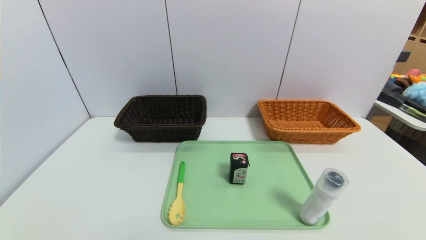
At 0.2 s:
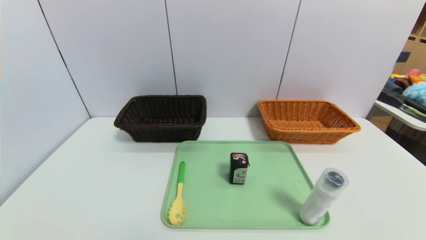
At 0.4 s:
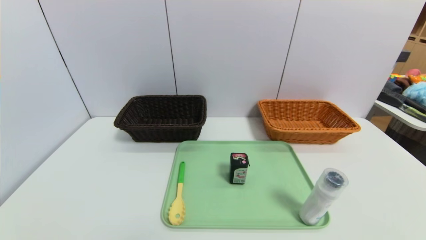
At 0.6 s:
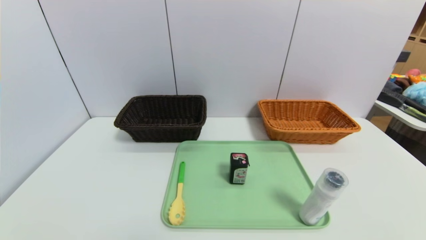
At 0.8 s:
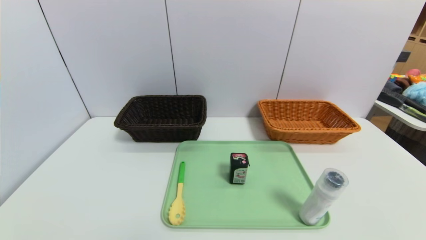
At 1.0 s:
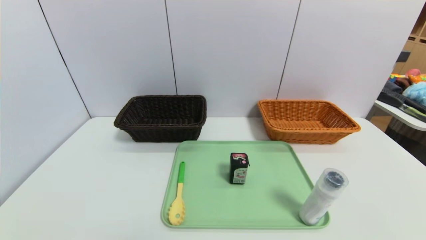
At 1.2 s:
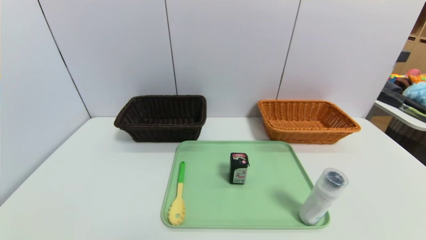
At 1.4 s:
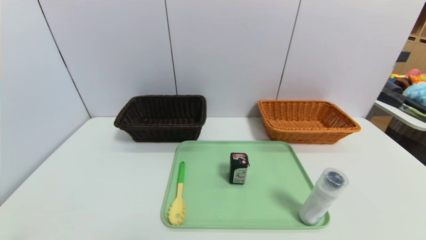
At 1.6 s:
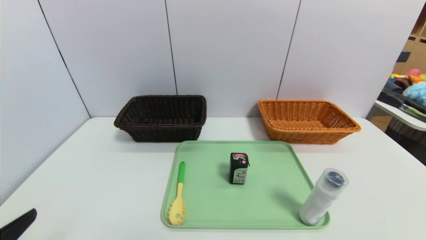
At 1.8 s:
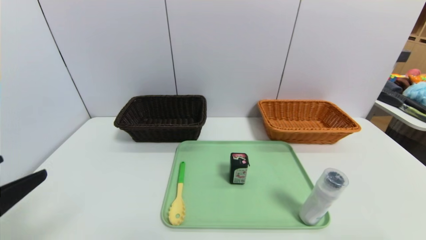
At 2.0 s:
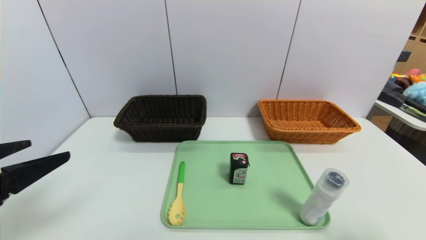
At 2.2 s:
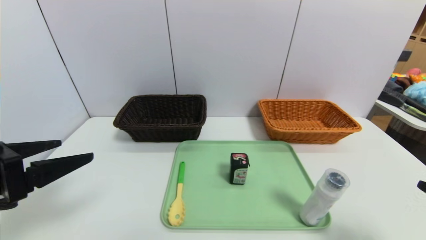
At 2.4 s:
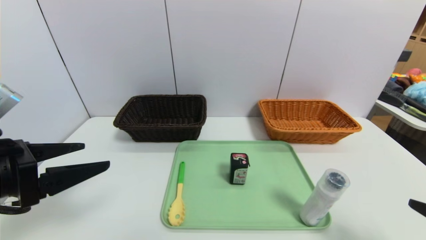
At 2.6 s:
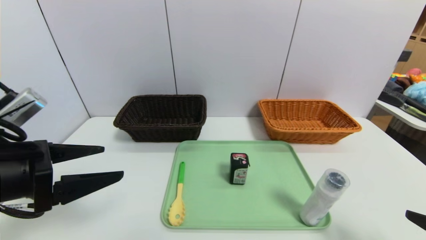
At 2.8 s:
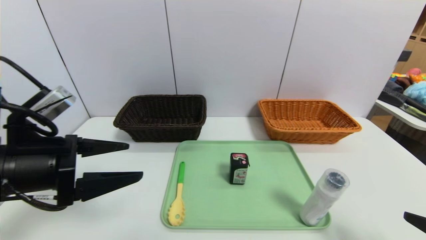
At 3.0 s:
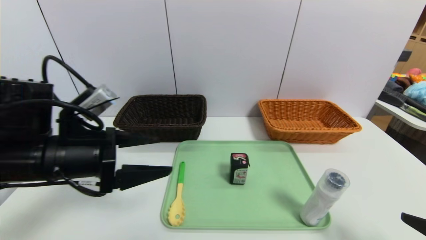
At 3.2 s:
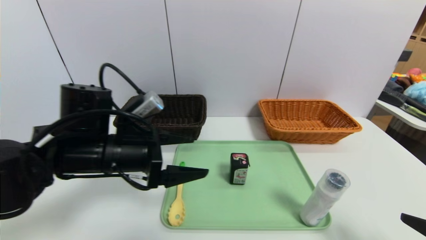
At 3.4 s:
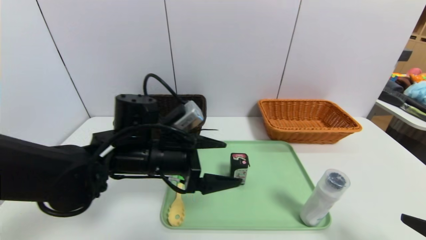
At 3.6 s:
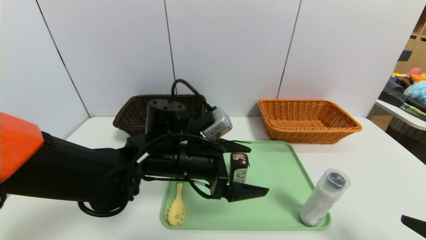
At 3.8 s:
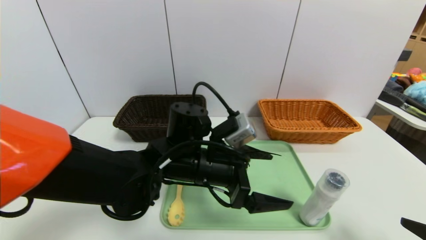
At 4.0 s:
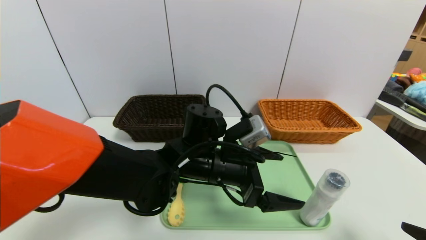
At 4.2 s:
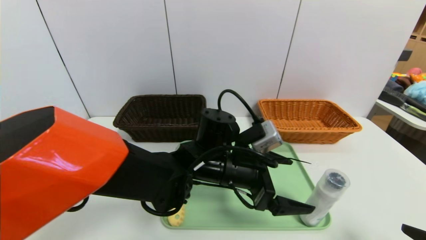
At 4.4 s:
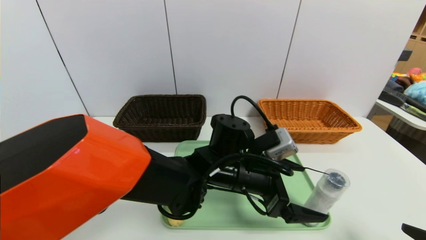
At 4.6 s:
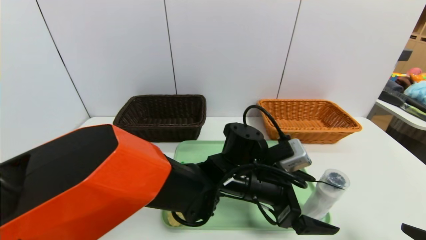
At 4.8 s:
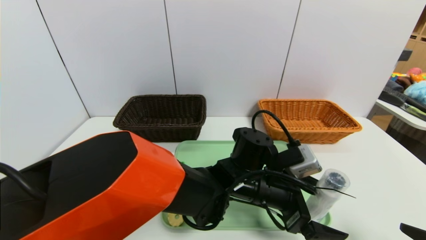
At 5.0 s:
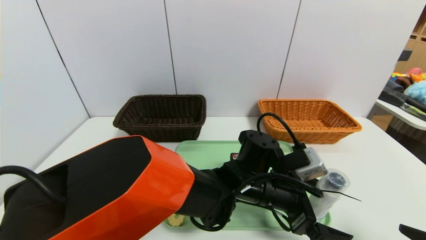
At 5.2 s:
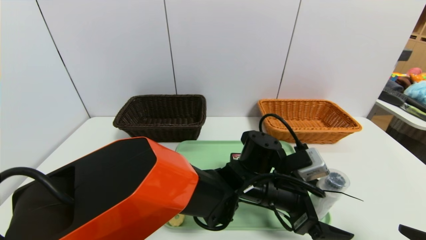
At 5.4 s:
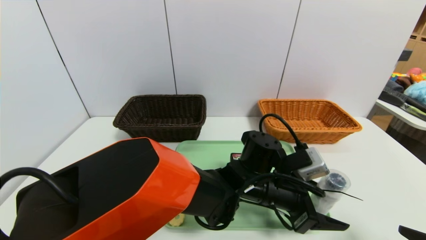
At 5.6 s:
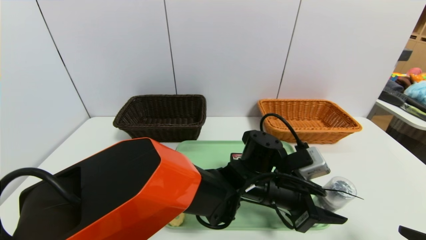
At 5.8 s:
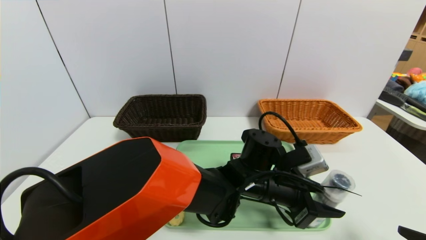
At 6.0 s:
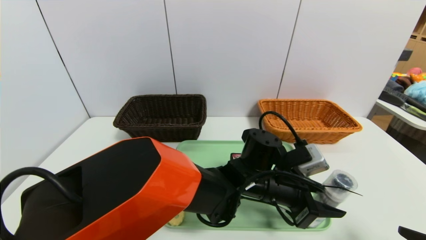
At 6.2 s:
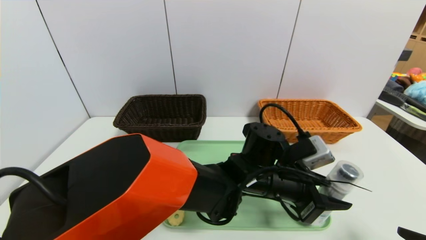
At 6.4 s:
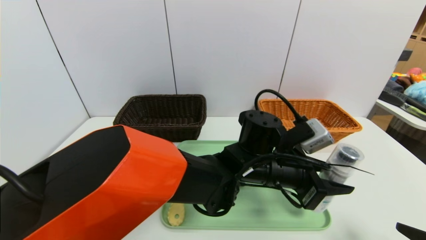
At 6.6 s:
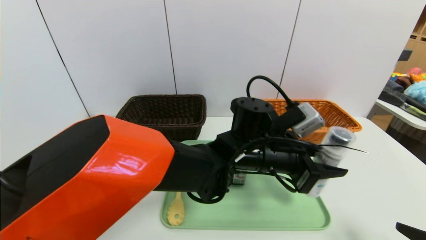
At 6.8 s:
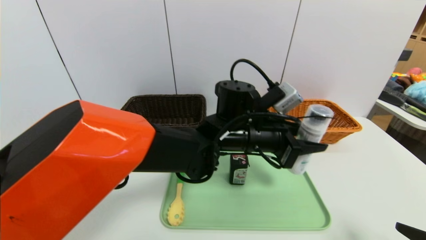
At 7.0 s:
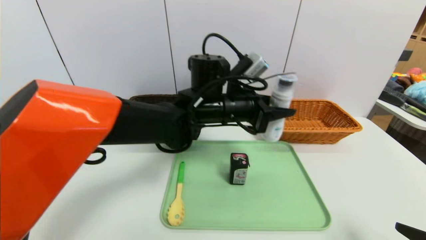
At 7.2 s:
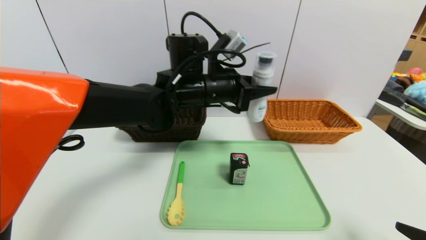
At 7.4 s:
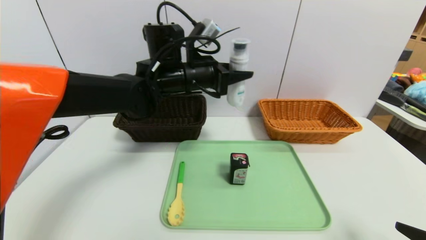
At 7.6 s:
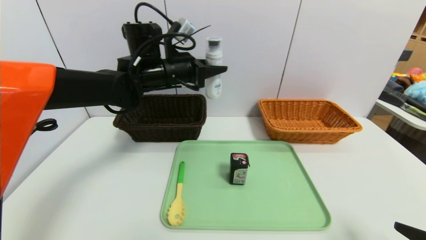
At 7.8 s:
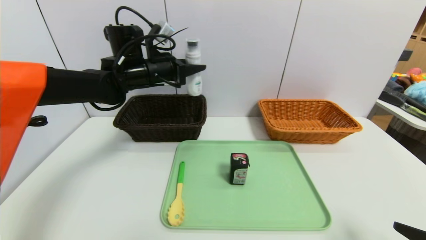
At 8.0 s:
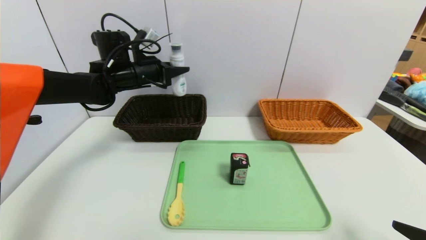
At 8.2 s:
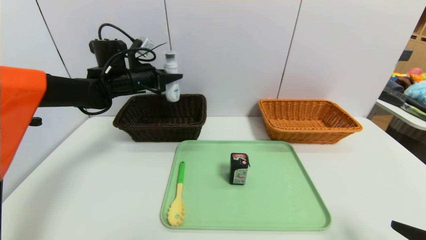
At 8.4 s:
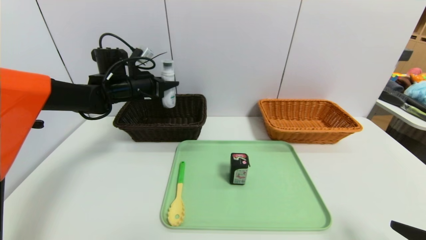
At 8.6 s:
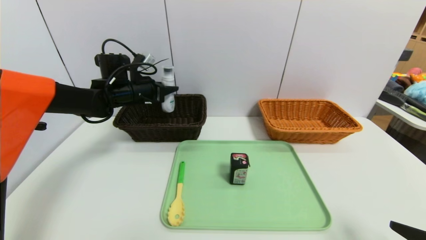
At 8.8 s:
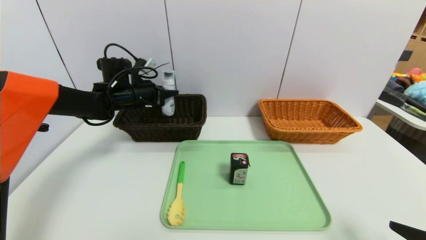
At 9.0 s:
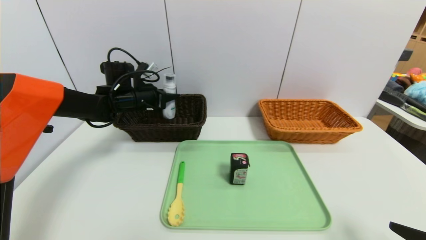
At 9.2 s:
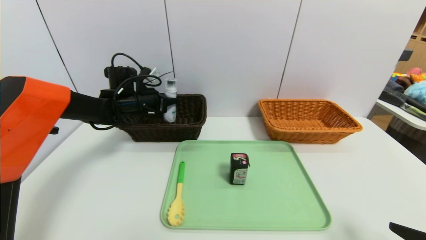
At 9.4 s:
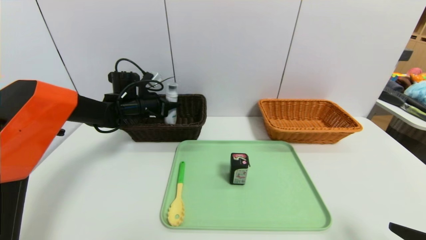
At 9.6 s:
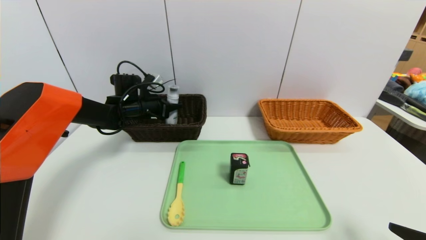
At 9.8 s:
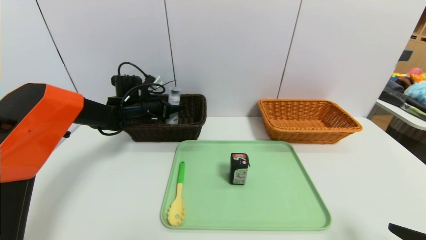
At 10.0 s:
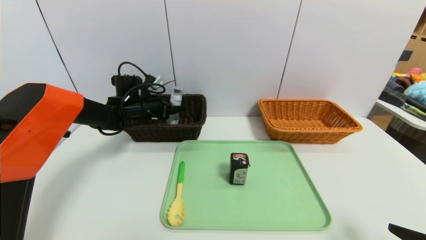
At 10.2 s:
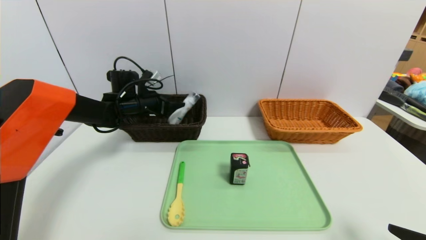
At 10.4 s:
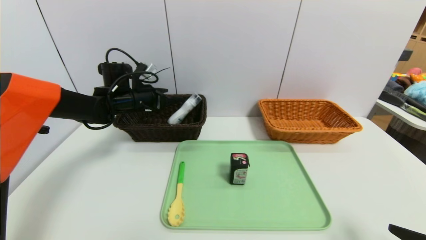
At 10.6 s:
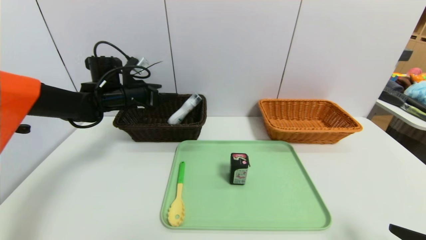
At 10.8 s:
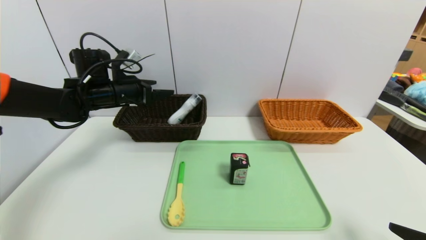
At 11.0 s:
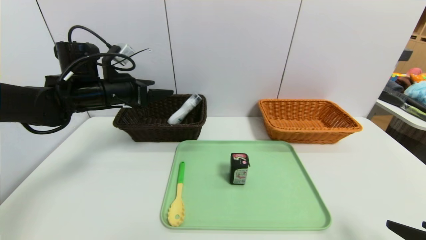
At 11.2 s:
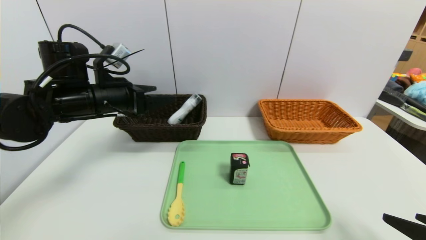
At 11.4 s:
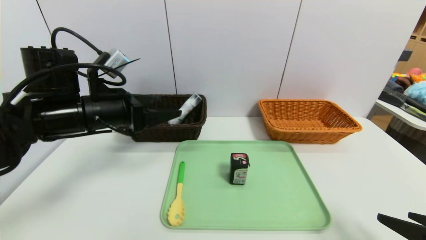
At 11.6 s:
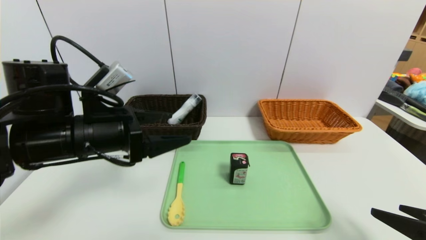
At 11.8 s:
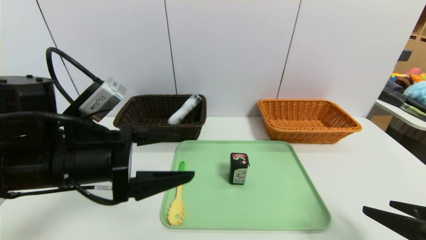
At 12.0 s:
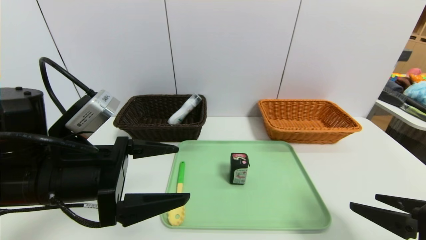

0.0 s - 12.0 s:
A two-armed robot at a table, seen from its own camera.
Task of the whole recording: place the food in the right basket with the right gripper, and place the non food items in the left basket with the left gripper.
Step, 0.0 s - 10.2 s: Grasp the cleaning agent and put it in the left basket.
0.0 s - 1.6 s: The left gripper is displaced upward by roughly 15 cm.
1.6 s - 3.0 s: The right gripper goes approximately 5 cm forward, while the left gripper moves forward and to the right, some 20 cm.
3.0 s - 4.4 s: The left gripper shifts some 25 cm to the right.
4.4 s - 6.0 s: The left gripper heads to the right, covering approximately 5 cm, and closes its fingers.
6.0 s - 7.6 s: The left gripper moves to the left, upward and forward, roughly 30 cm.
7.6 s - 9.0 s: The left gripper heads to the left, downward and forward, covering some 15 cm.
9.0 s - 10.4 s: The left gripper opens.
10.4 s - 12.0 s: The right gripper shifts by some 5 cm; the left gripper moves backward, approximately 25 cm.

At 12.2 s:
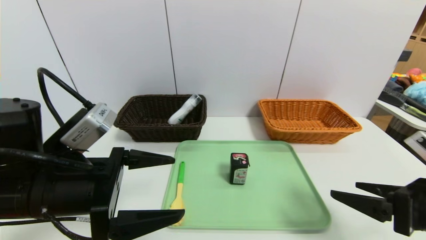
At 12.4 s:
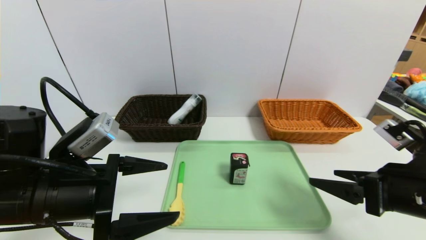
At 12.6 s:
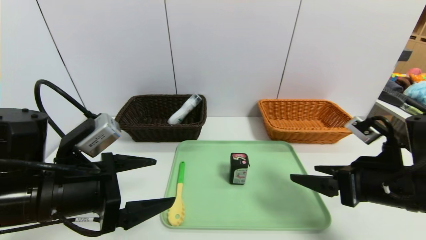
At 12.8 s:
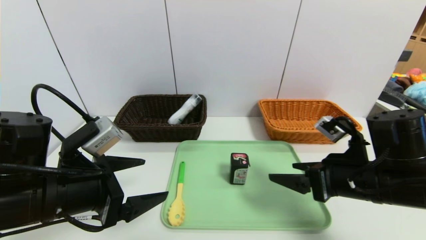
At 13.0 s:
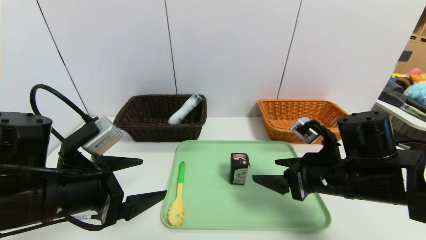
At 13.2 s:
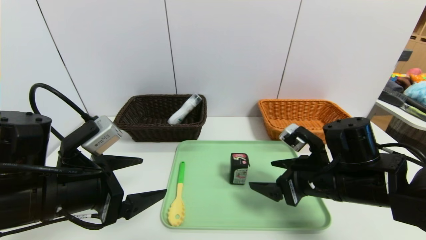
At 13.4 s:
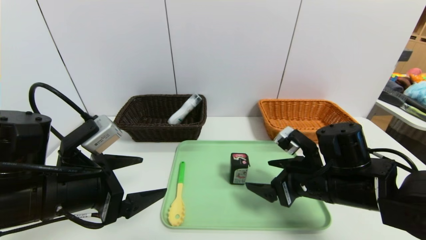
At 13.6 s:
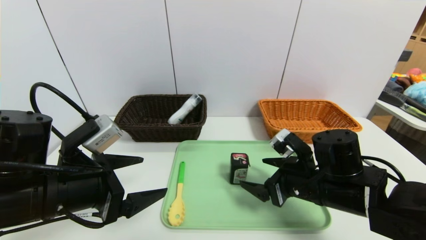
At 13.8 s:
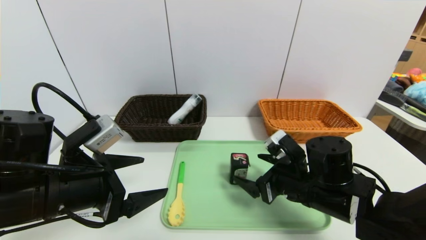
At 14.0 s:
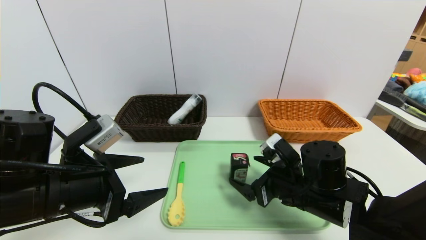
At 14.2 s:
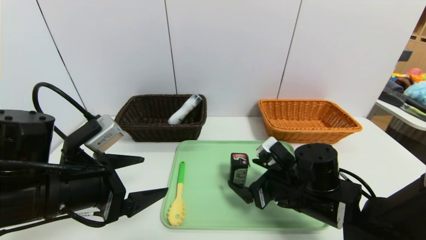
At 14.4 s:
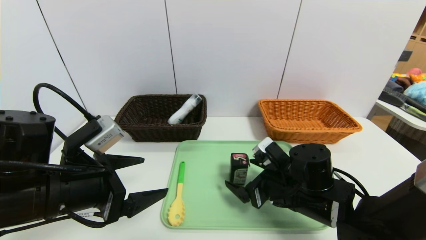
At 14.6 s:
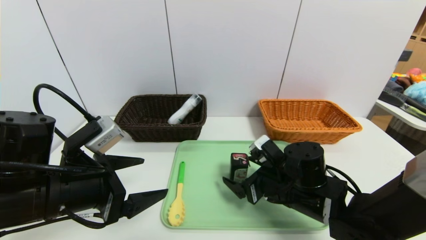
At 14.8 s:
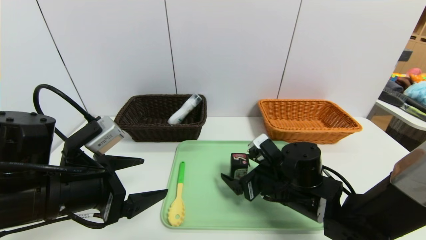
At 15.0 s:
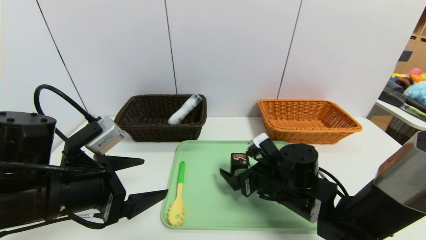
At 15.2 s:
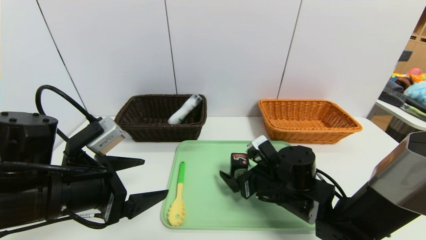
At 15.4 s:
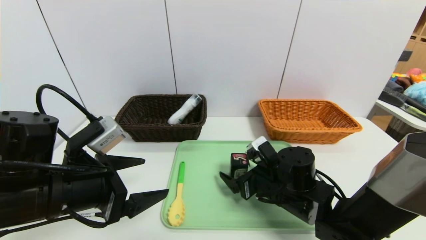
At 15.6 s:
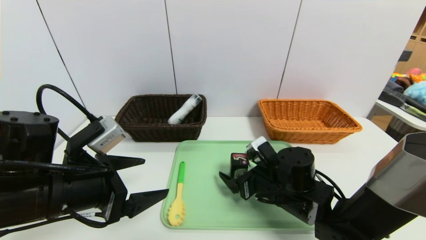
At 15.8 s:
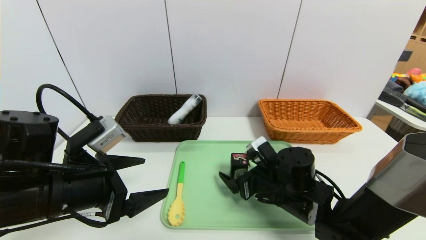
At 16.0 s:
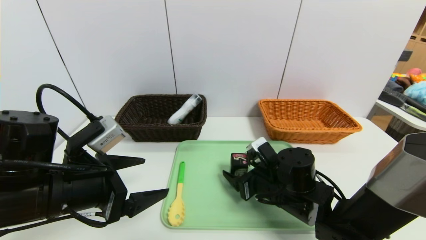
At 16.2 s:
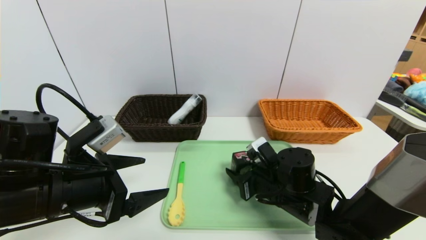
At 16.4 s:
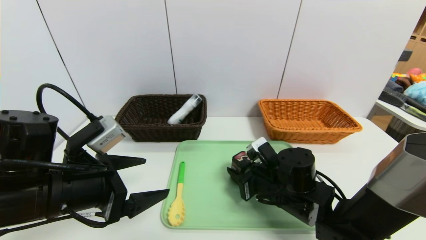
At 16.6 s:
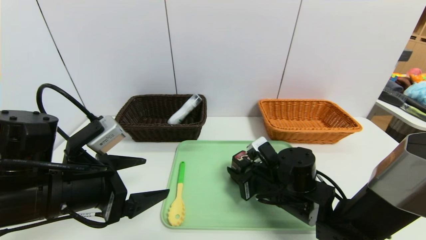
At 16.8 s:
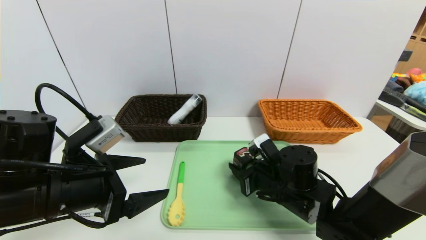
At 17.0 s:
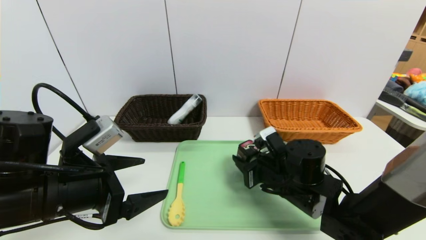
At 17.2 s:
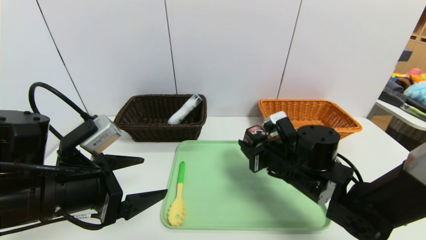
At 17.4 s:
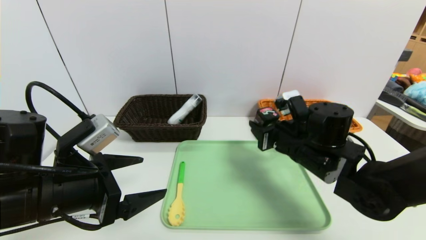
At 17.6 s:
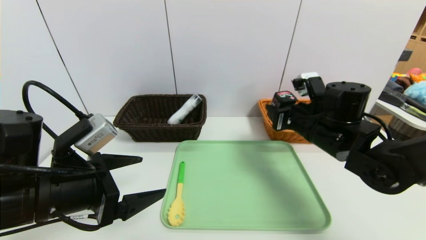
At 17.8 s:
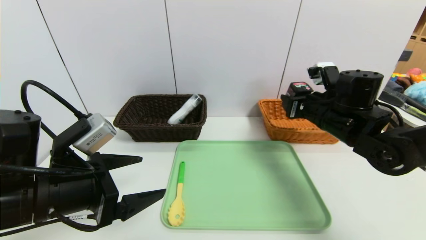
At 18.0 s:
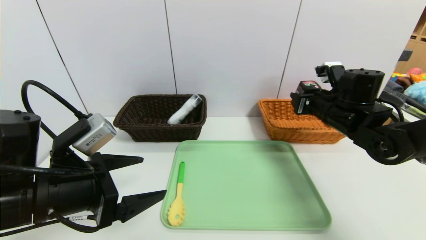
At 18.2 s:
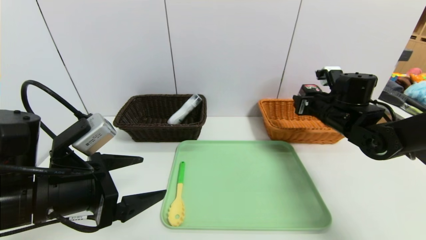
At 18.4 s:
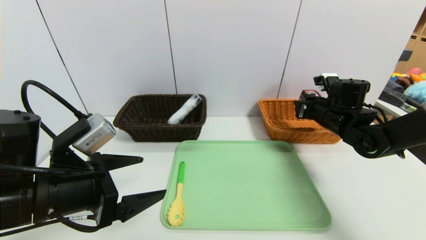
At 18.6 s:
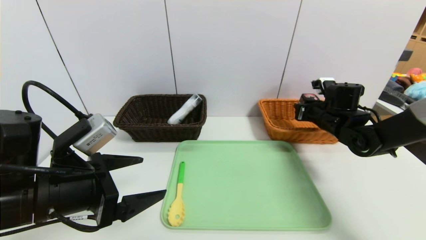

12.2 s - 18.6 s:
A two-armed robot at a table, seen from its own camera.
Task of the whole recording: place the food in the right basket with the right gripper, and place the non food items in the left basket with the left gripper.
12.2 s - 13.8 s: The right gripper shifts approximately 20 cm to the left, forward and downward.
13.8 s - 15.4 s: The right gripper moves about 5 cm.
15.4 s - 17.0 s: The right gripper closes.
17.0 s - 18.6 s: The right gripper is displaced to the right and forward by about 20 cm.
